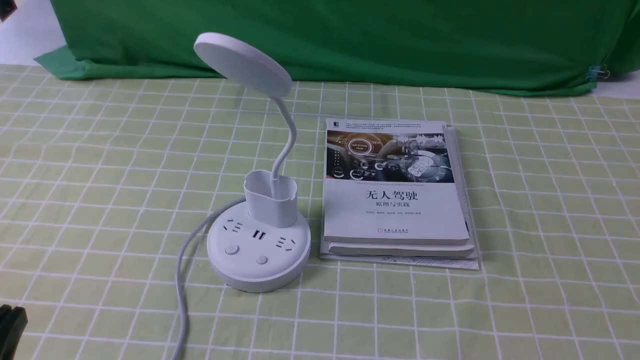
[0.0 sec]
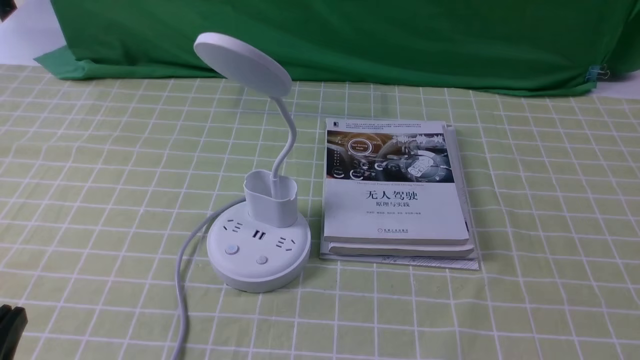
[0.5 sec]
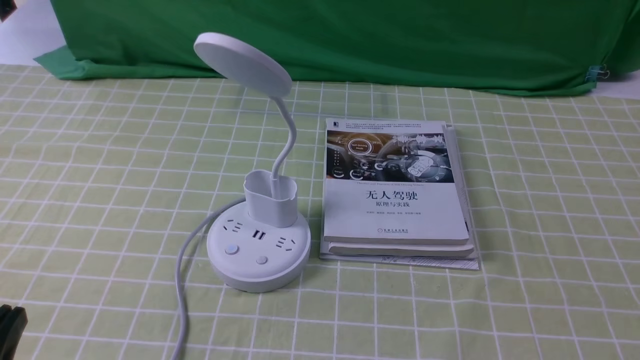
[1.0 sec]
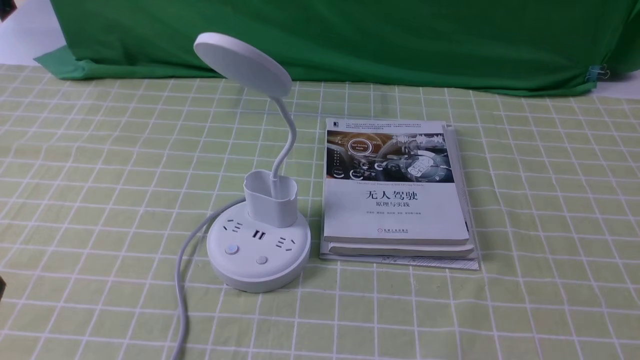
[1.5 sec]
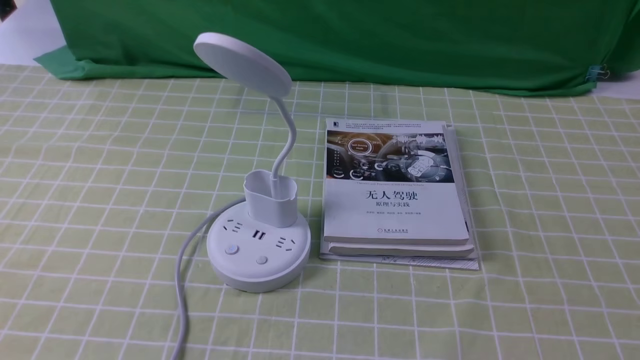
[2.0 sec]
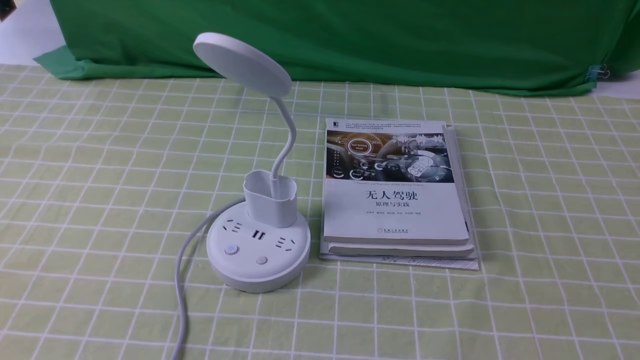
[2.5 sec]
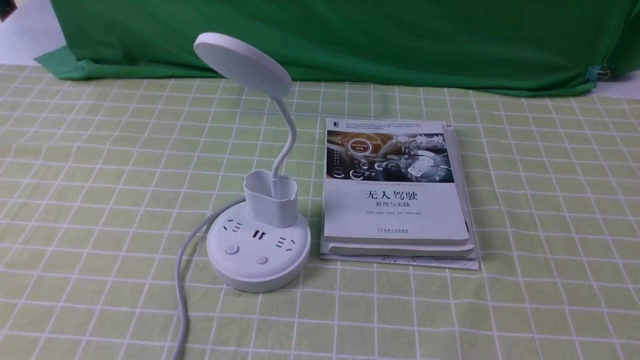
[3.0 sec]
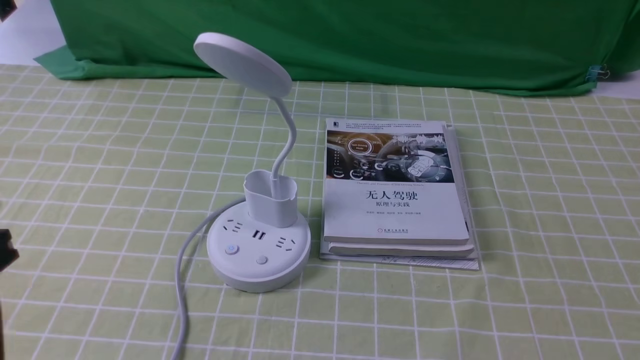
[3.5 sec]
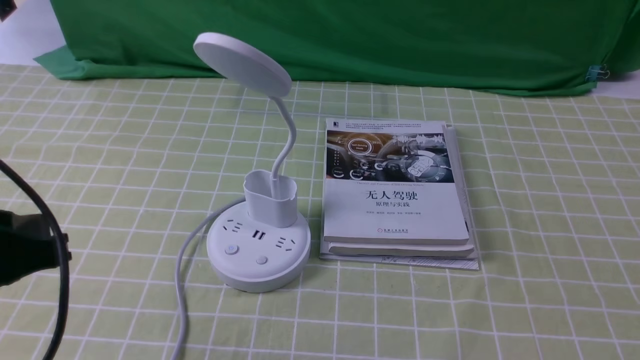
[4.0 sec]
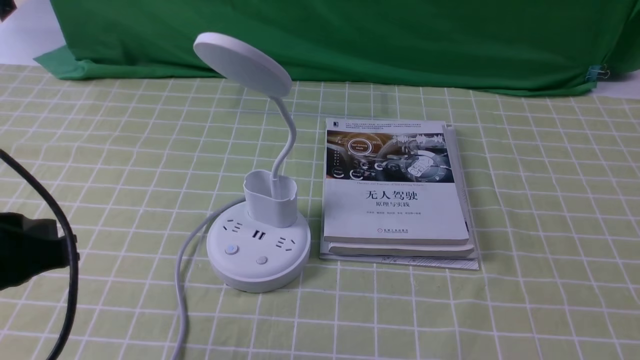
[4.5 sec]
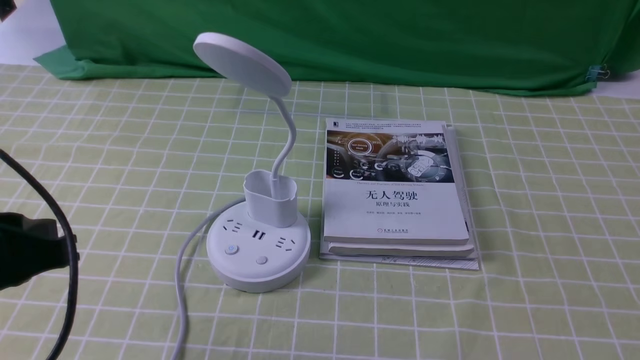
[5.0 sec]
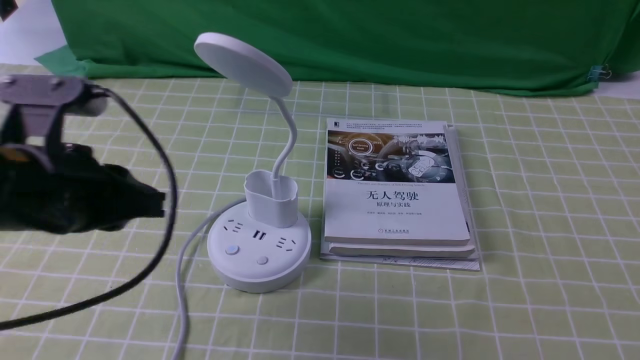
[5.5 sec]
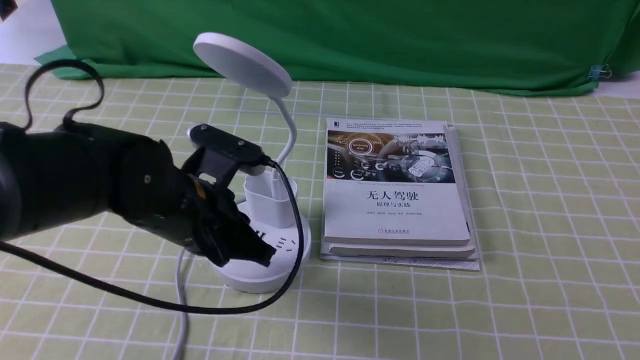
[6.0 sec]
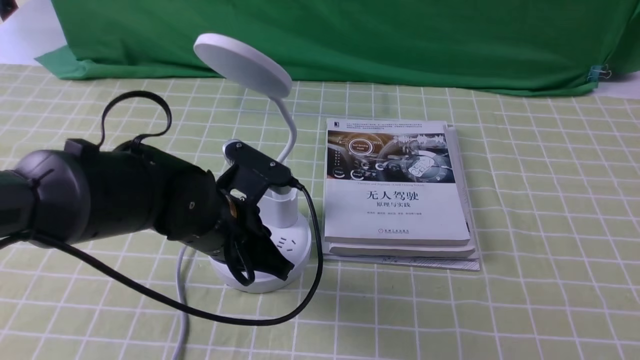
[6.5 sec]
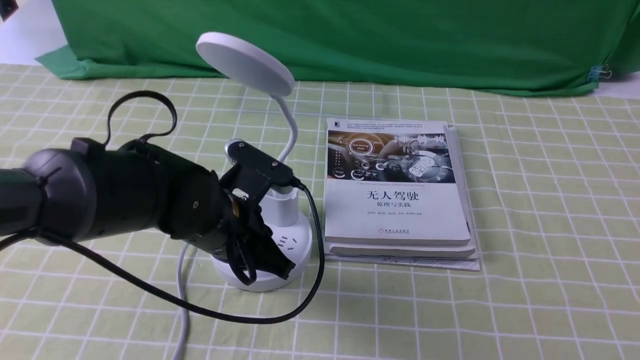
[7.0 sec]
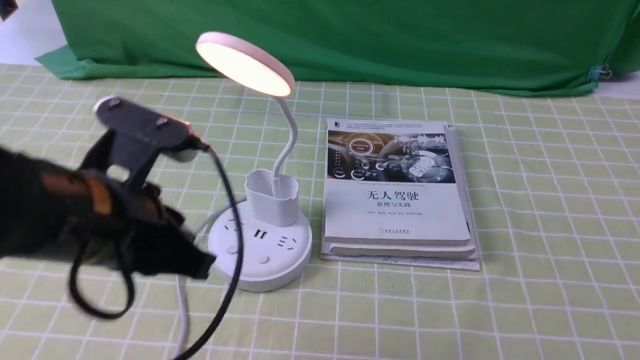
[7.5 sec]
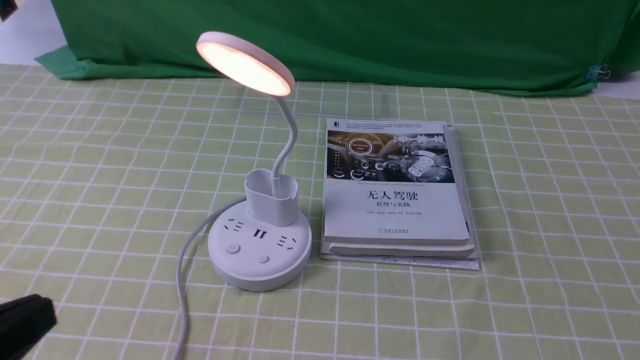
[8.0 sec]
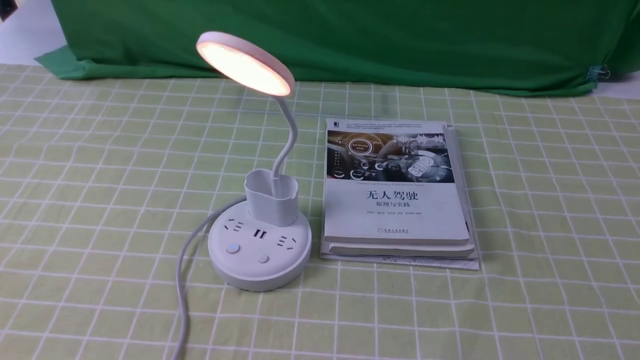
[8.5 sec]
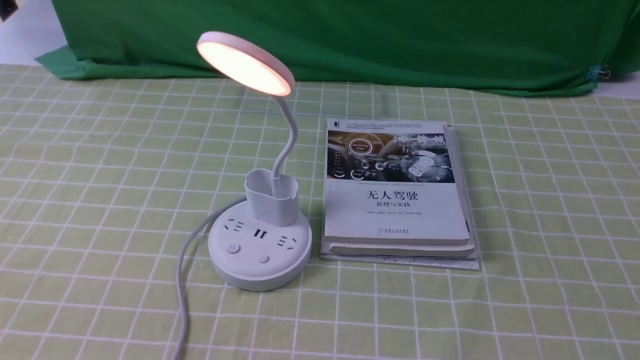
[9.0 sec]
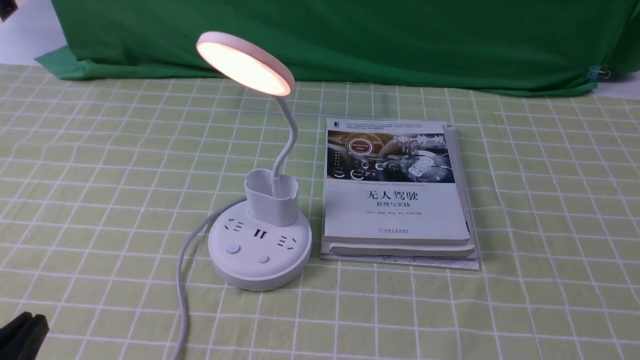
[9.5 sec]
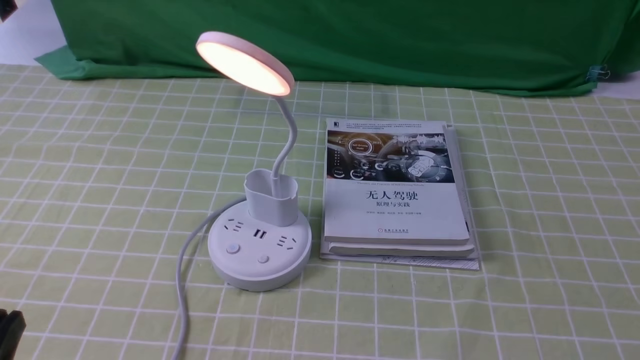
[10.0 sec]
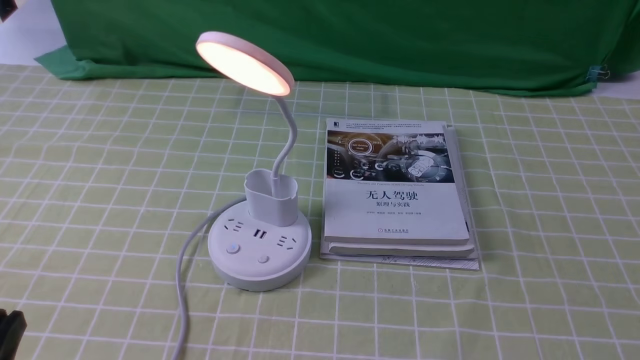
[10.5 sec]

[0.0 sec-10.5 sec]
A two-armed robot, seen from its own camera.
Step, 0.0 sec to 7.0 sec: use the left arm to press the button switch on the lamp holder.
2.0 sec to 4.0 sec: The left gripper moves forward and upward, about 10 cm.
4.0 sec to 6.5 sec: The left gripper moves to the right, forward and downward, roughly 25 cm.
6.5 sec to 8.5 sec: The left gripper goes roughly 35 cm backward, to the left and upward.
